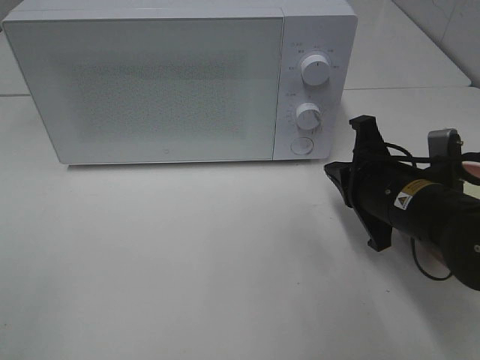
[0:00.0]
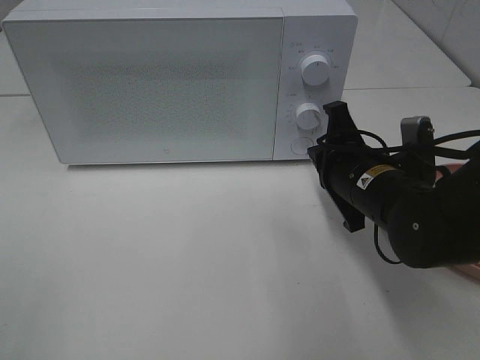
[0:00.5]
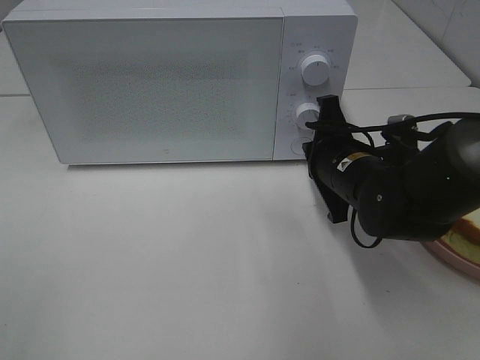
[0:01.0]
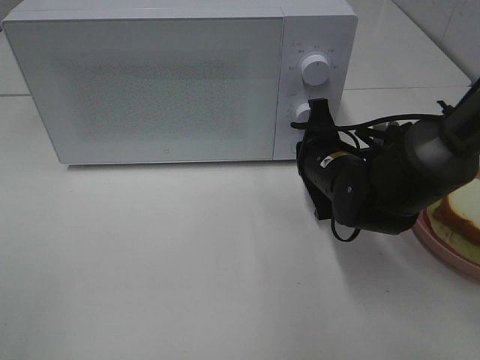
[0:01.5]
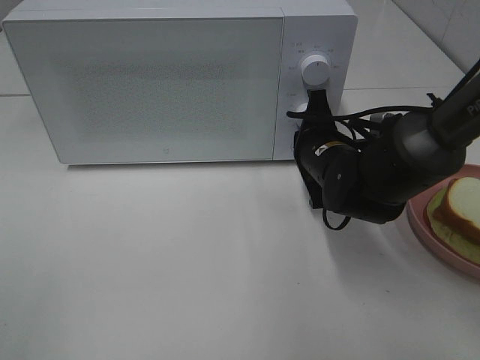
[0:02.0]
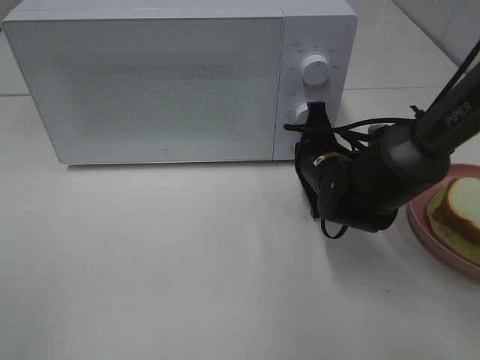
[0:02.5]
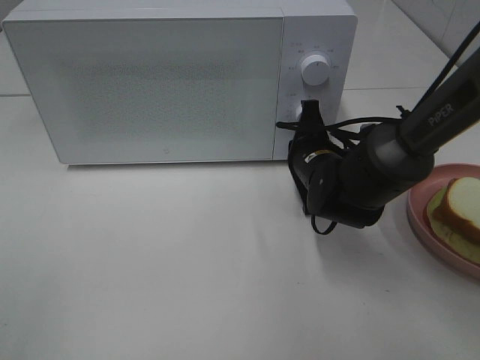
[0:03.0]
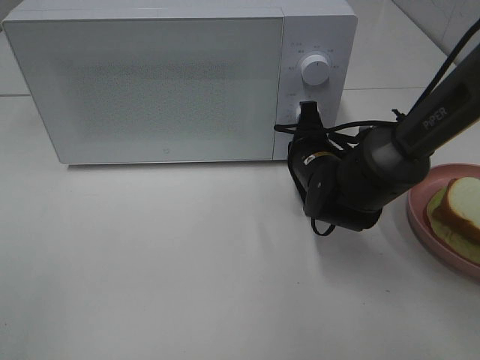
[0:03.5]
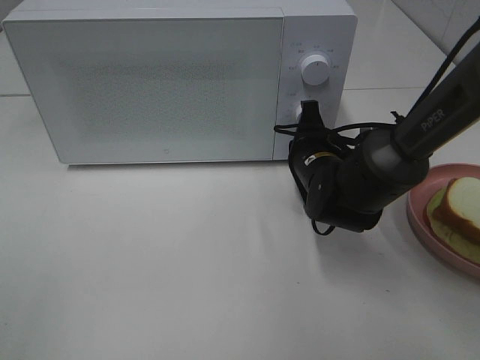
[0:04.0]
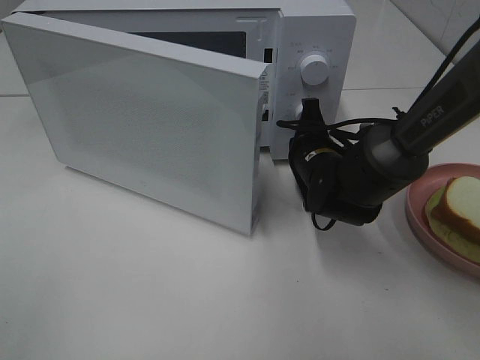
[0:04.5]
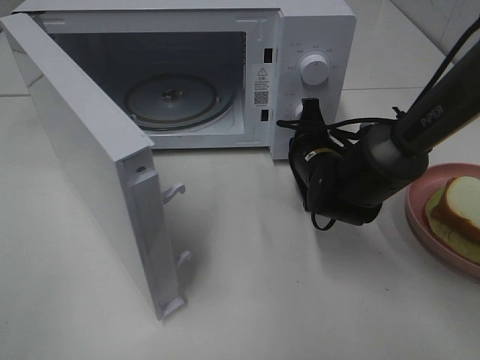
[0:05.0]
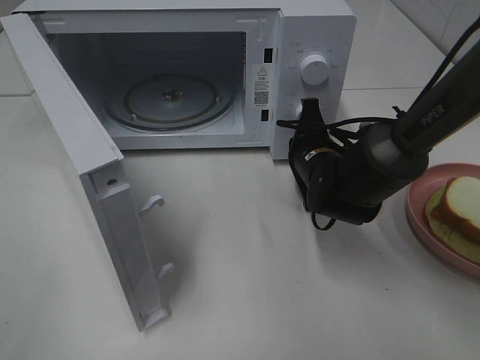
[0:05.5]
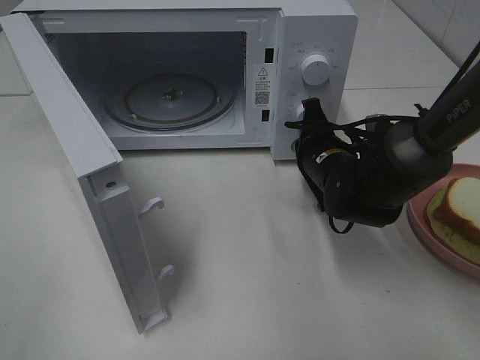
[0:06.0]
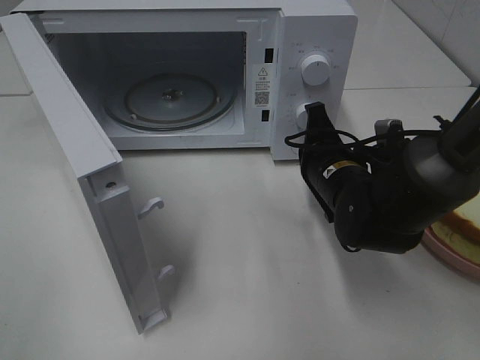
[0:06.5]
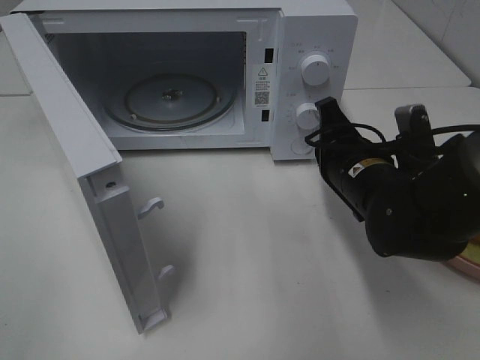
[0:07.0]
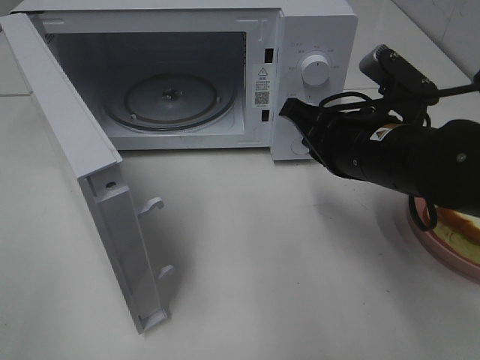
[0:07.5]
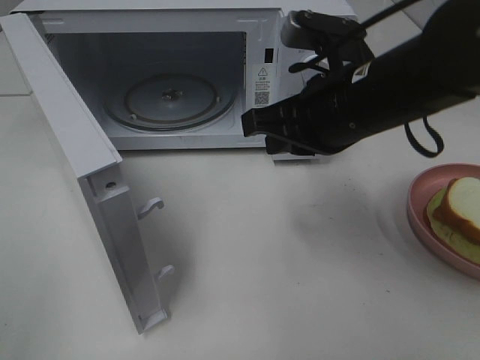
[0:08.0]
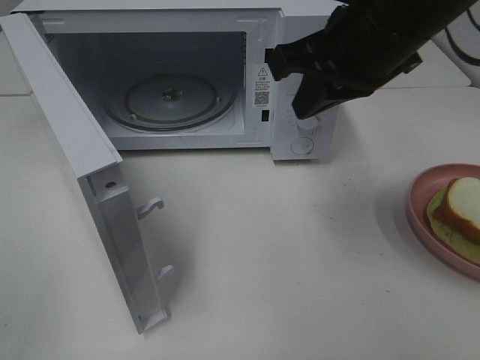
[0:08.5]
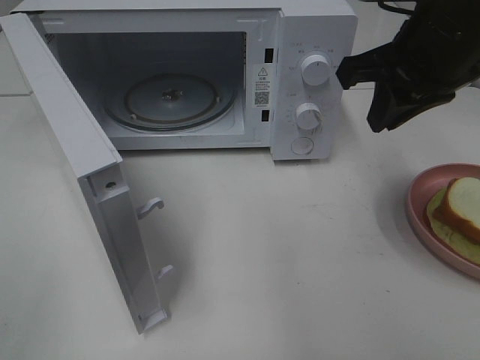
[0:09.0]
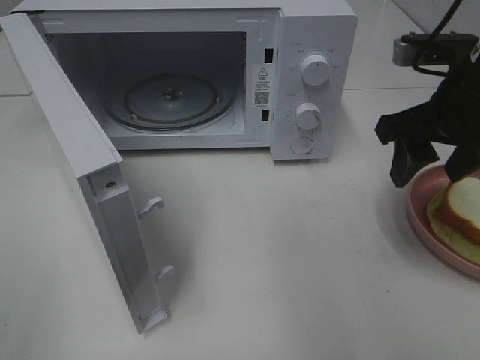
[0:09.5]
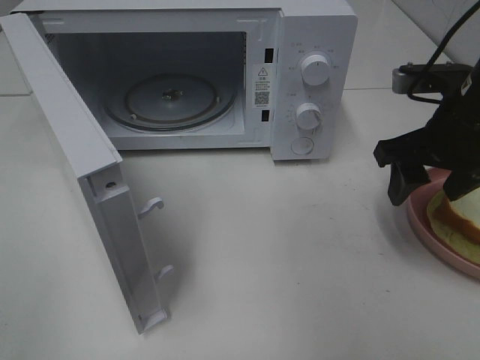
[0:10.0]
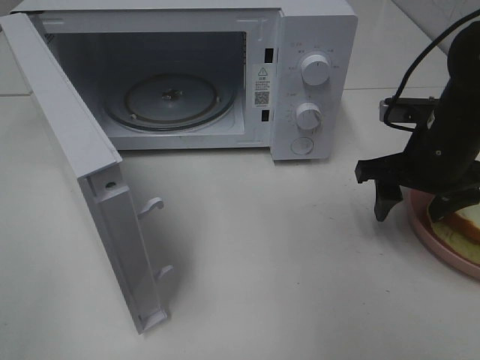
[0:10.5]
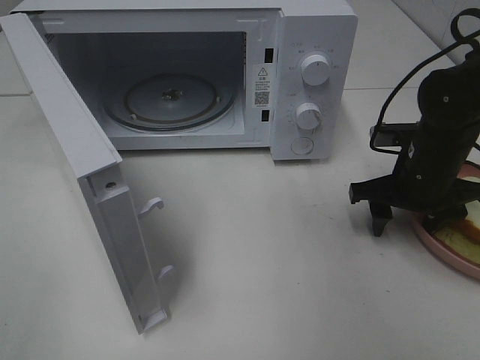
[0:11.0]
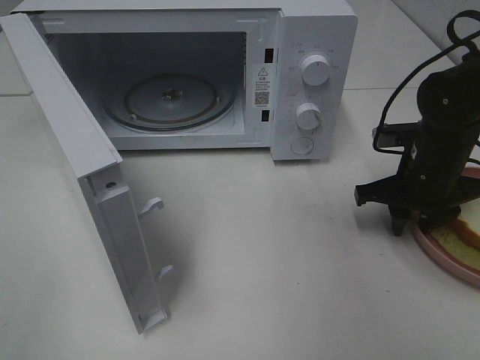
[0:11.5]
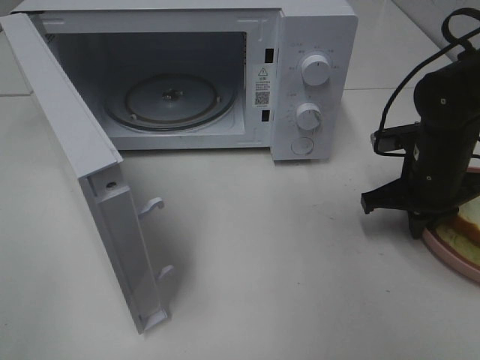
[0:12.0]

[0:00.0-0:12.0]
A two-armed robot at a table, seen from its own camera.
Task of the whole recording: Heat Sandwich.
Step, 0.0 to 6.0 s: Right hand: press the switch.
0.0 to 2.0 s: The right gripper is displaced forward and to the left by about 10 cm.
2.0 to 4.0 s: The grippers make only small movements.
6.0 to 8.0 s: The right gripper shifts some 15 cm upward and backward.
8.0 to 10.0 s: The right gripper heads to the right, covering approximately 10 cm, and opens up.
10.0 to 12.0 s: The right gripper shifts roughly 10 cm downward, and closes.

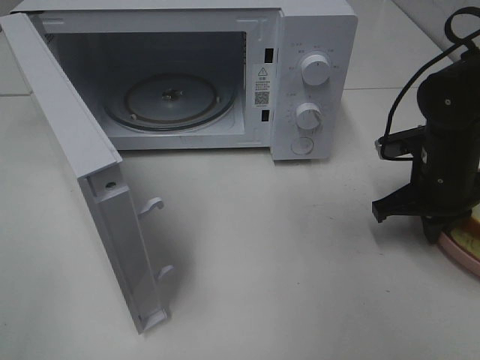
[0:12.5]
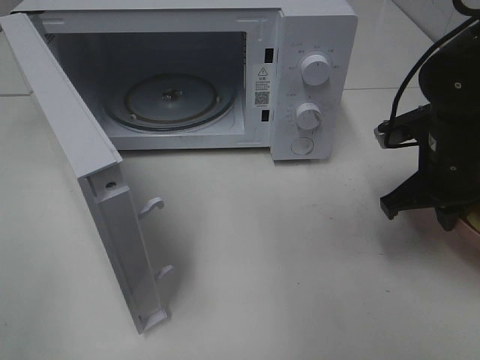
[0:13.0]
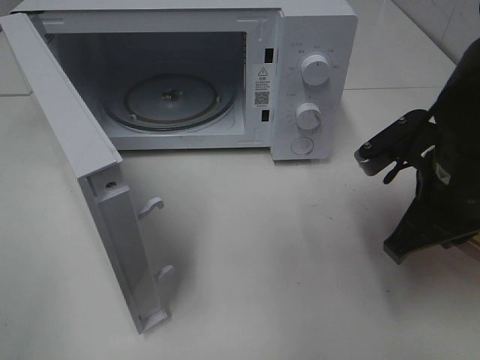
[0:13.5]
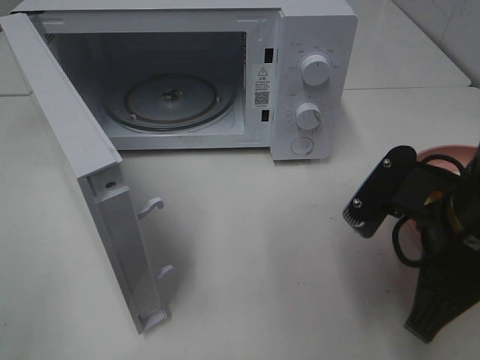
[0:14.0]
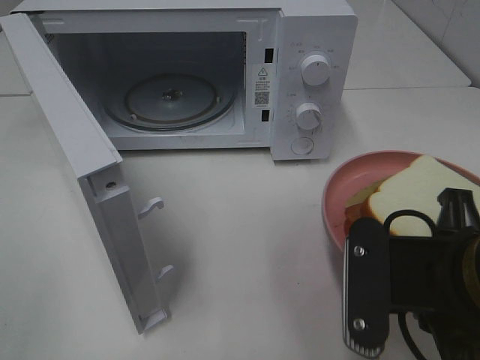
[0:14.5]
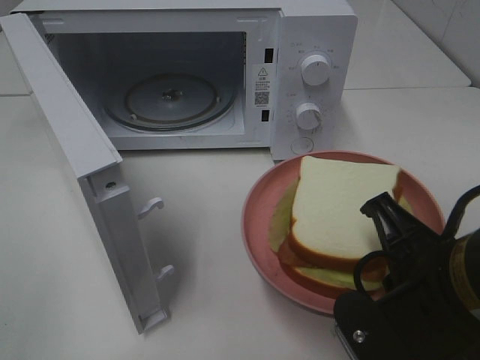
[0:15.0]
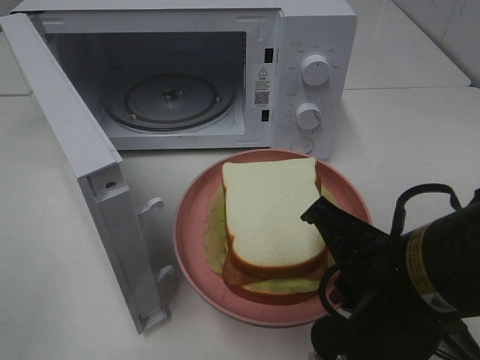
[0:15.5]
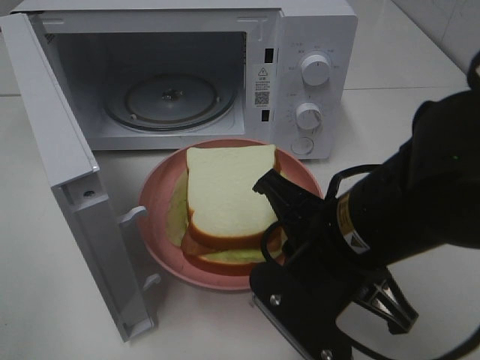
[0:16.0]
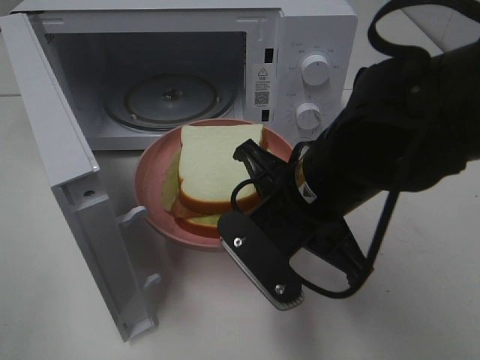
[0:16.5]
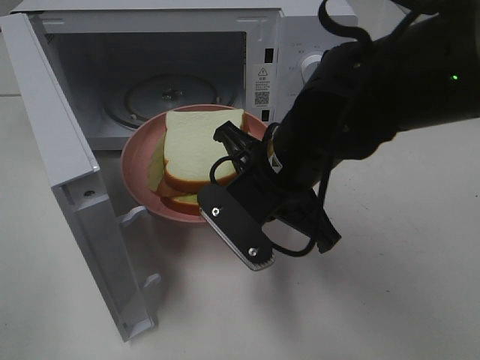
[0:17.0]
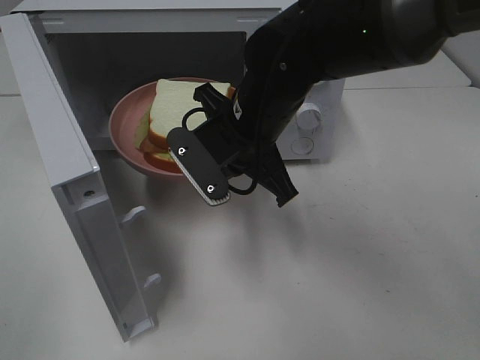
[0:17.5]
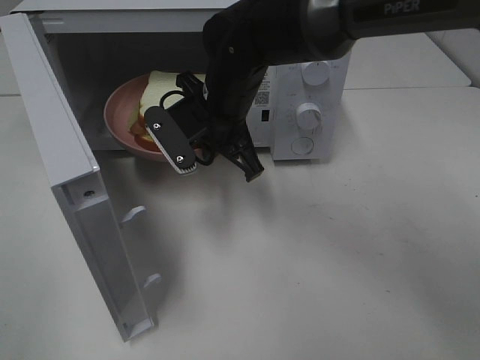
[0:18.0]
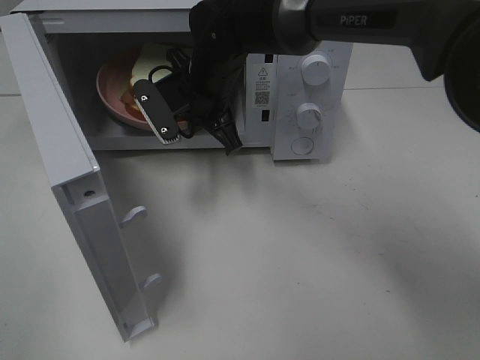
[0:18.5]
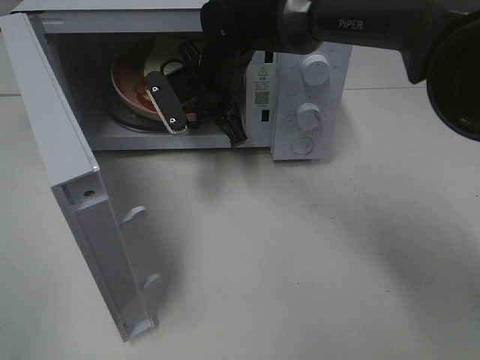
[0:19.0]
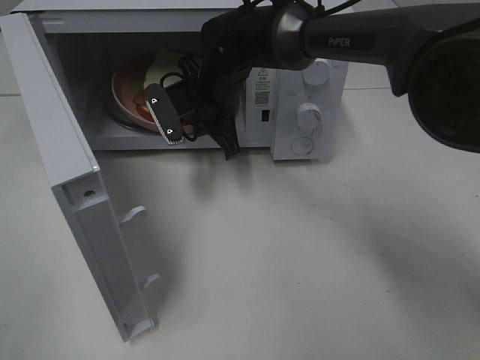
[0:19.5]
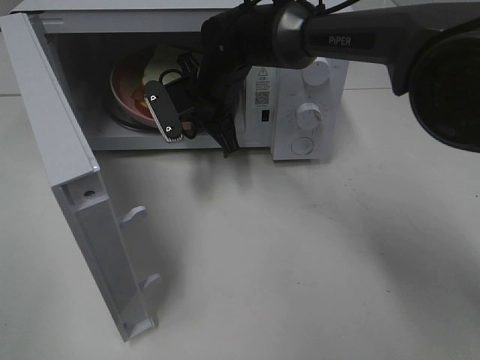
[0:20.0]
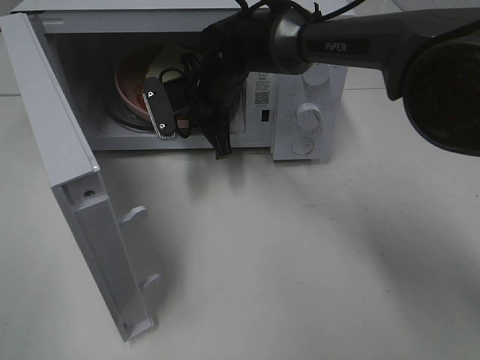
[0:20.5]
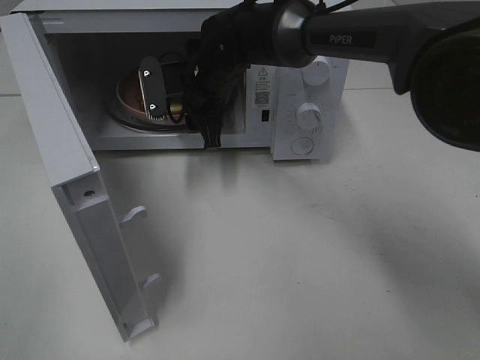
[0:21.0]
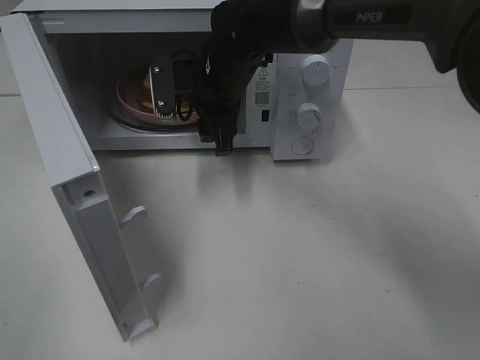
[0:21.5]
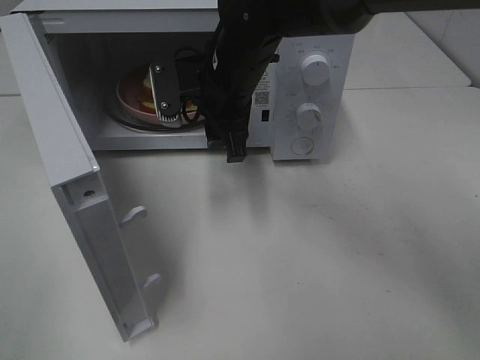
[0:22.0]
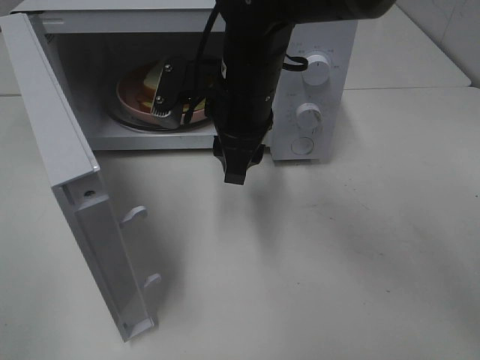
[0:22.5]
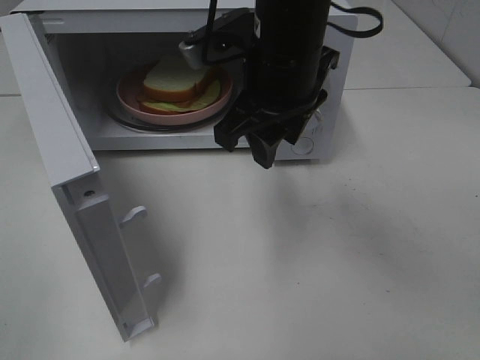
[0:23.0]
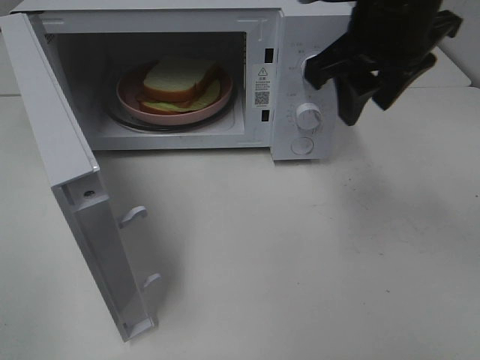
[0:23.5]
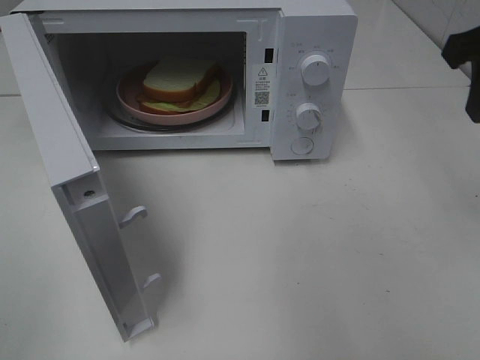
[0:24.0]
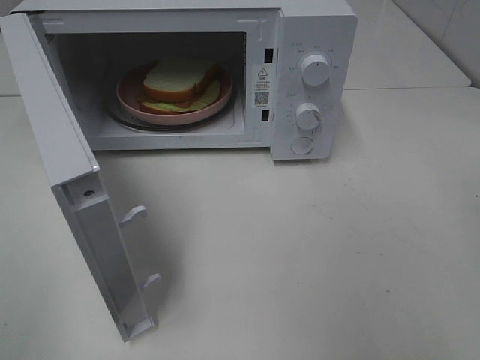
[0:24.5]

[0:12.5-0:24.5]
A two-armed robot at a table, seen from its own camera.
Task of the whole recording: Heat Sandwich.
Step, 12.5 to 21.5 s: Right hand: place the plate in the microwave.
12.5 to 14.5 s: The right gripper is displaced backward and to the left by roughly 20 cm.
14.5 to 16.5 s: The right gripper travels forward and to the left by about 15 cm.
16.5 to 18.5 s: The right gripper heads forward and to the left, covering approximately 20 cm.
18.5 to 20.5 s: There are only small adjustments of the grippers.
20.5 to 22.5 s: The right gripper moves backward and upward, roughly 10 cm, and opens.
22.5 to 24.5 s: The right gripper heads to the right and backward, covering some 30 cm.

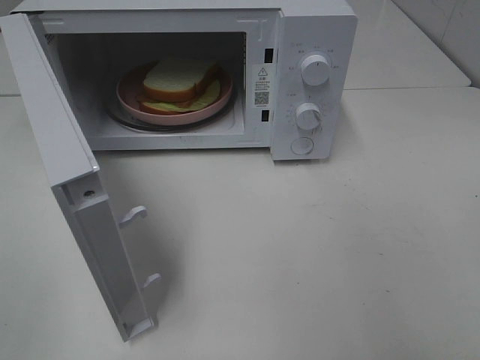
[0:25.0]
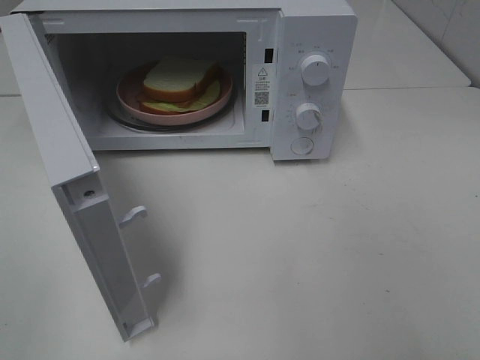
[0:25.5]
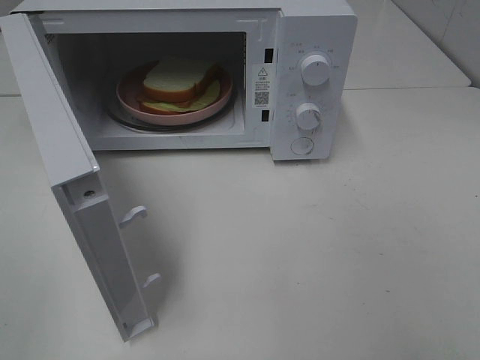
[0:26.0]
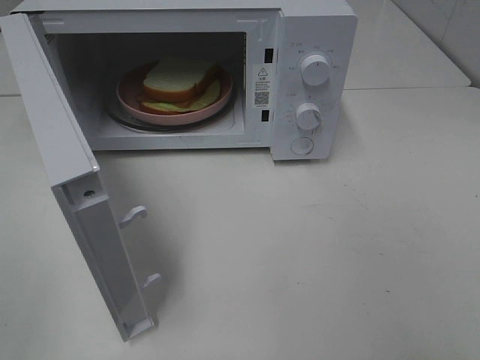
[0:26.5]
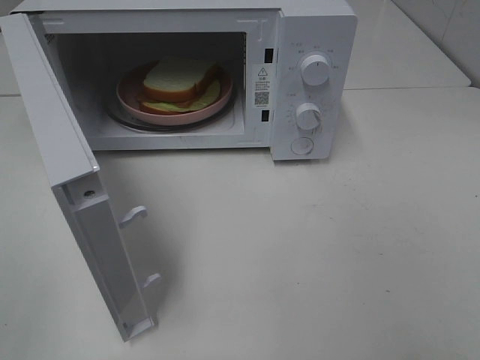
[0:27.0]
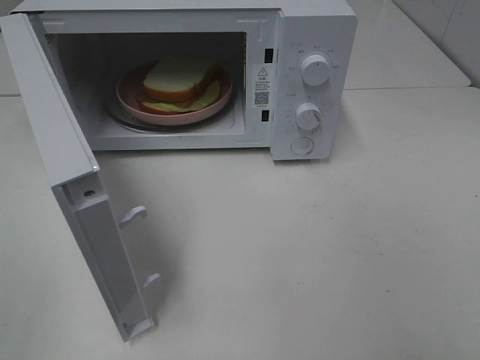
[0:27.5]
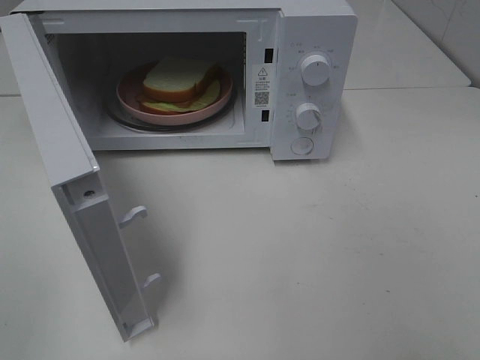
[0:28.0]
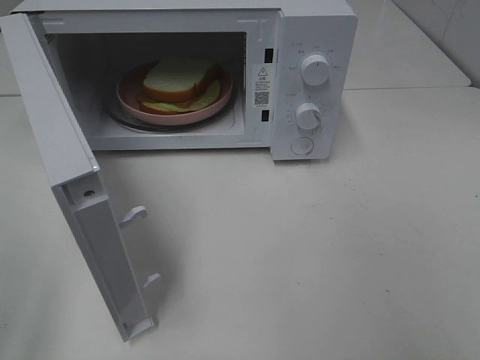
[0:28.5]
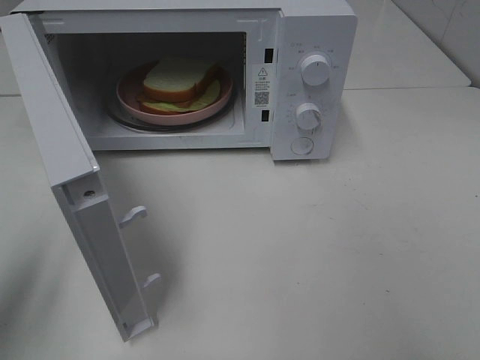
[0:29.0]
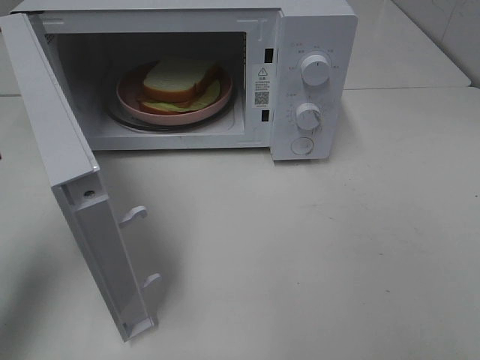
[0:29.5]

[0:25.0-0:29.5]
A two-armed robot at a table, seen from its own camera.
Task of the whole recording: Heat Sandwich.
27.0 to 29.5 s: The left gripper is displaced forward by roughly 20 cm, and closes.
